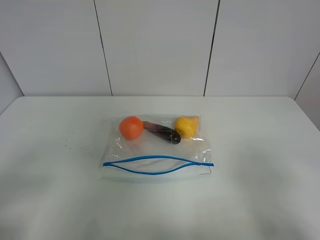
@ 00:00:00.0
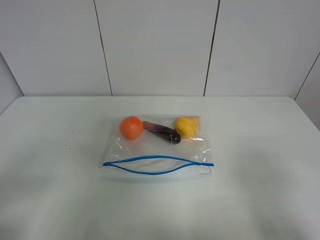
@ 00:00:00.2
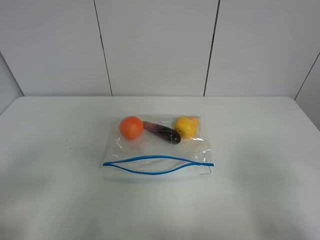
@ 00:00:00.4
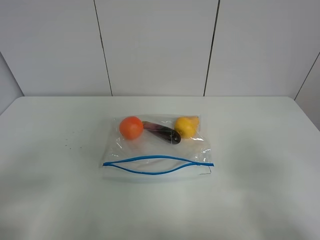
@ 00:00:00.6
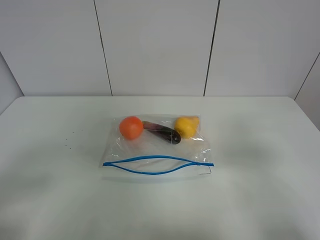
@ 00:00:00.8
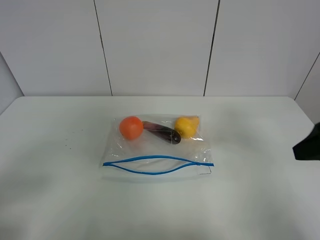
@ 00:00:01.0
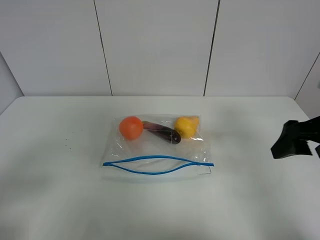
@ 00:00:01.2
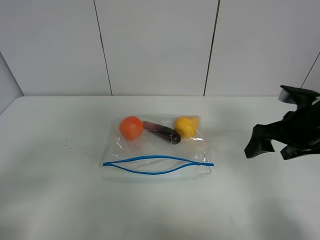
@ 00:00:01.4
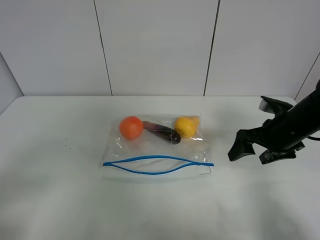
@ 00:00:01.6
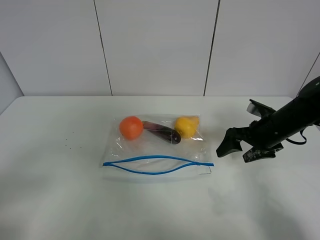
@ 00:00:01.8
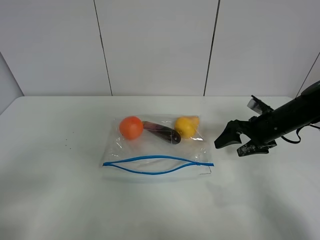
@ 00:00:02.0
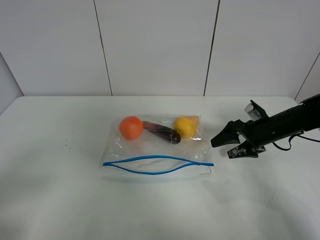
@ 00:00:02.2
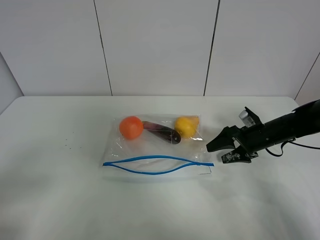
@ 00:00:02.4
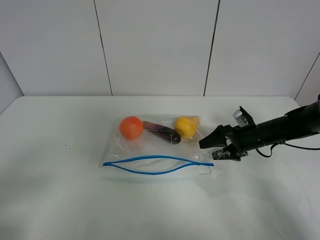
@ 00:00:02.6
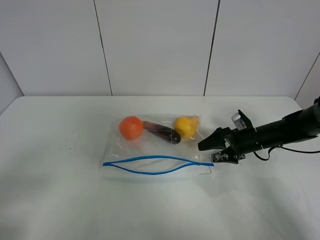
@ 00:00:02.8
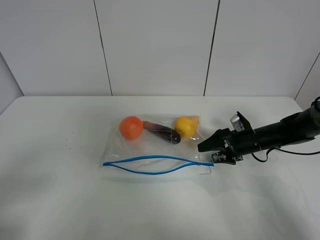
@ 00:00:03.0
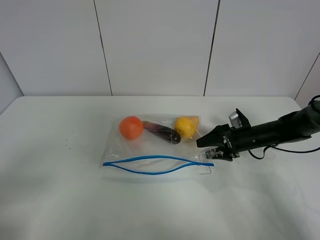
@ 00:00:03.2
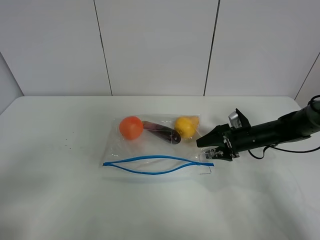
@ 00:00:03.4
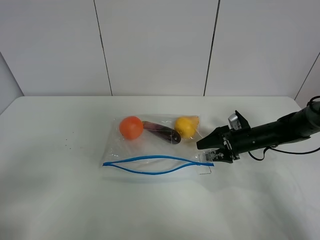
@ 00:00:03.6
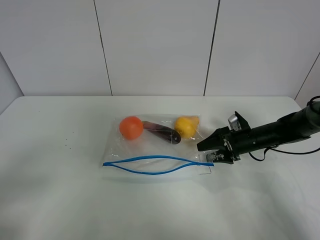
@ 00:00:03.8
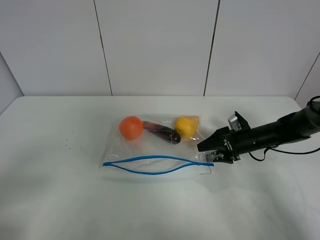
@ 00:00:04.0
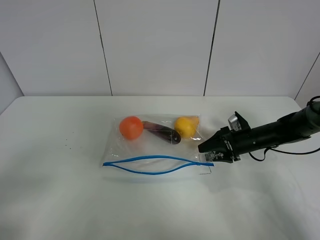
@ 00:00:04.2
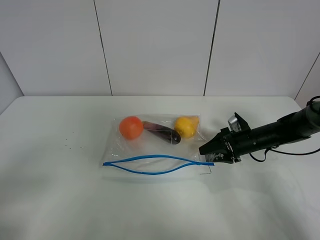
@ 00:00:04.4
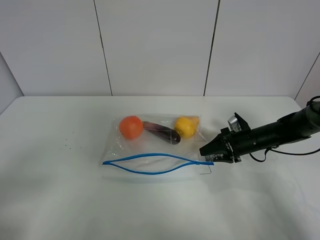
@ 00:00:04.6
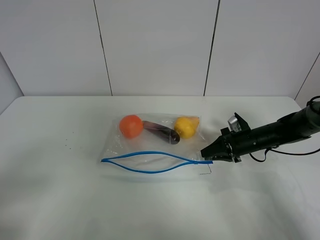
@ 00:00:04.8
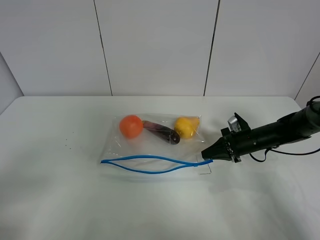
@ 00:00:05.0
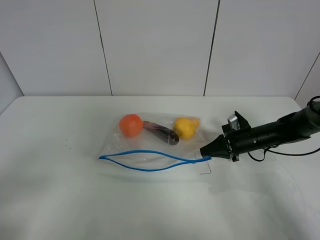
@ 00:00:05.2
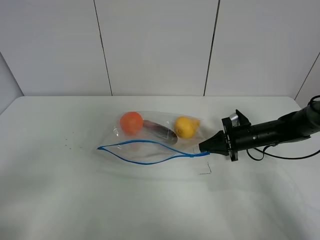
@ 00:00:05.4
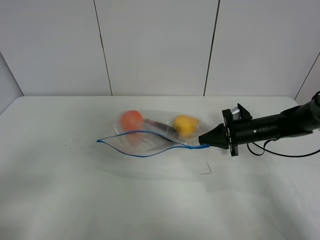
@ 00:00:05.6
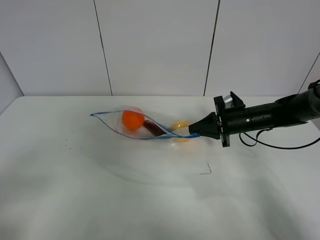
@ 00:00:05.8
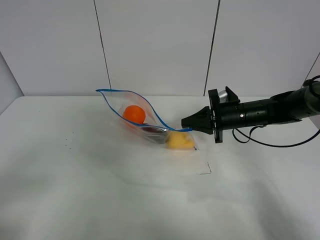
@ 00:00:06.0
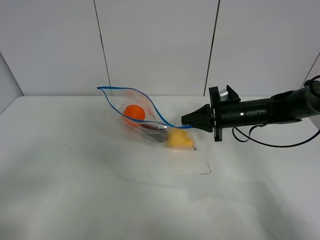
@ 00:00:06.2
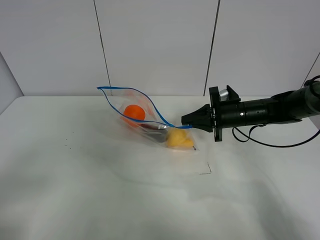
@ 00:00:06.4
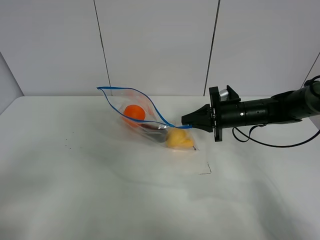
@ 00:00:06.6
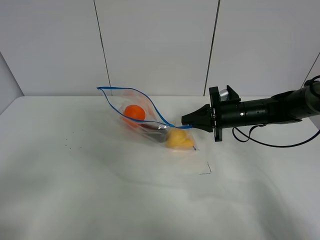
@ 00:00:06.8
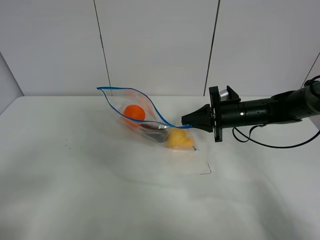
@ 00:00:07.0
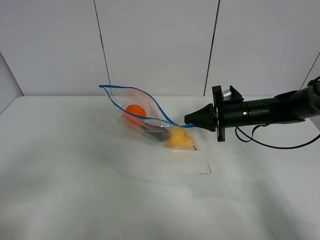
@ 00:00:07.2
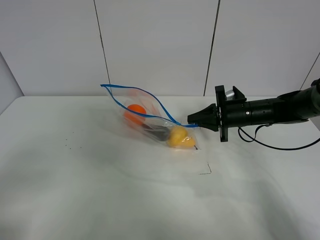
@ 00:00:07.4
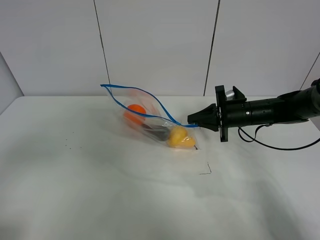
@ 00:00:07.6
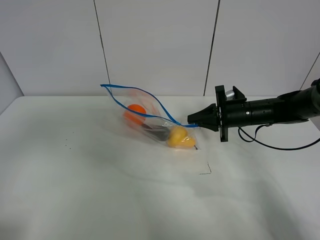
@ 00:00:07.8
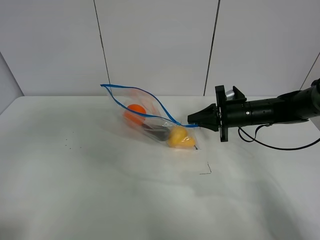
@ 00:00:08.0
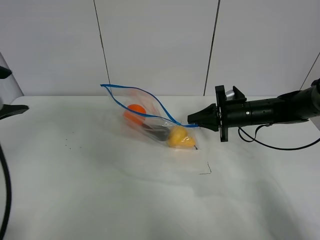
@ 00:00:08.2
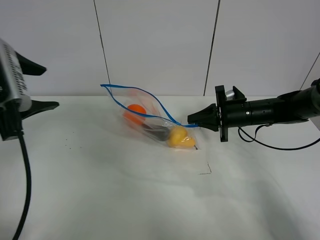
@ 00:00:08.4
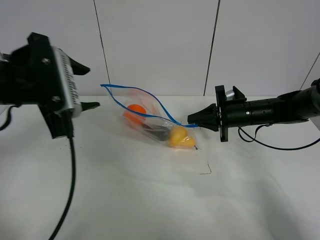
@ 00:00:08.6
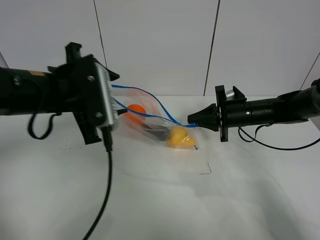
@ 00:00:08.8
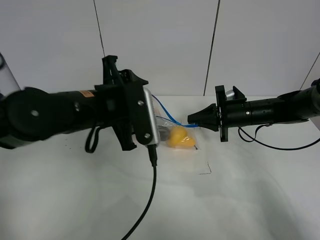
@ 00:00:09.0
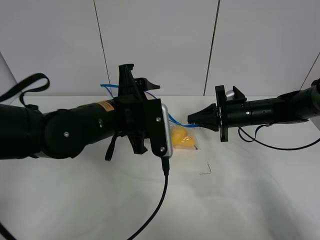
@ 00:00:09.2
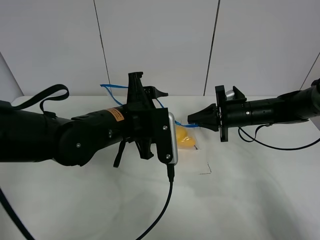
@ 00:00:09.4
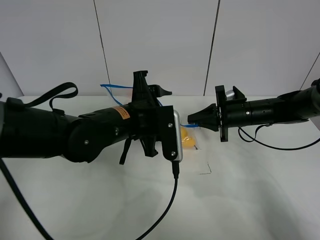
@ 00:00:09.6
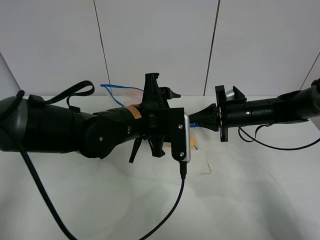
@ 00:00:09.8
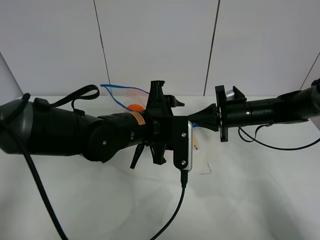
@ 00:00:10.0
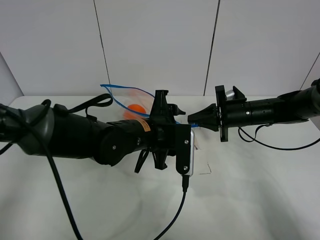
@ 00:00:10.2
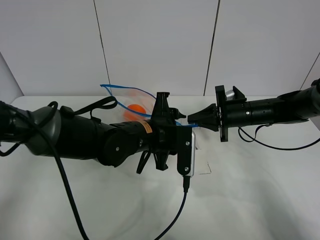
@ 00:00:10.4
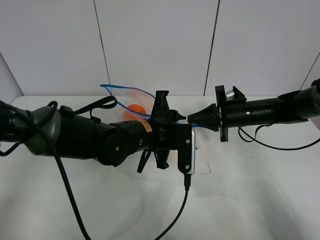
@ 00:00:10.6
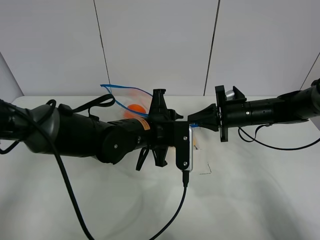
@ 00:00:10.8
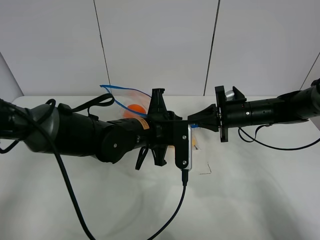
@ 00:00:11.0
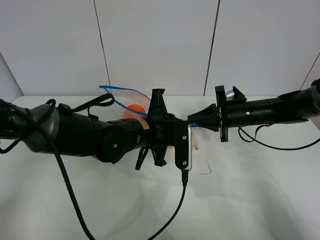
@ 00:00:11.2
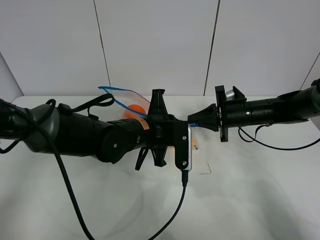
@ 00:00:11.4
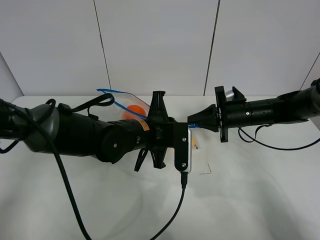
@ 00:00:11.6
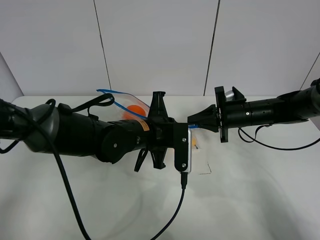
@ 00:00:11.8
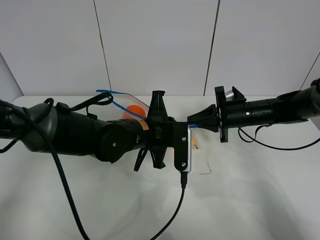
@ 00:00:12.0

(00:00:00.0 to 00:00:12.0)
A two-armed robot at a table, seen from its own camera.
Step, 00:00:00.0 - 00:00:04.8: Grasp the fruit bag with right gripper.
Step, 00:00:05.0 - 00:00:06.2: Lift the fruit bag with your right gripper.
00:00:00.0 - 00:00:01.6: The right gripper goes about 30 cm forward.
00:00:01.6 - 00:00:03.0: The right gripper moves downward and forward, roughly 15 cm.
00:00:03.0 - 00:00:04.4: Both grippers stay about where they are.
00:00:04.4 - 00:00:06.0: The right gripper heads upward and to the left, covering approximately 10 cm, and closes up.
00:00:06.0 - 00:00:07.6: The left gripper travels upward by roughly 5 cm.
00:00:07.6 - 00:00:09.0: The left gripper is displaced to the right and forward by roughly 30 cm.
00:00:09.0 - 00:00:10.4: The left gripper goes approximately 10 cm downward and to the right.
00:00:10.4 - 00:00:12.0: The left gripper closes.

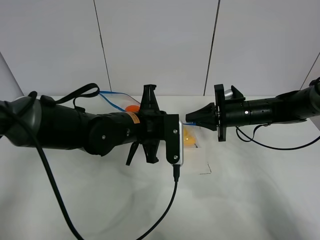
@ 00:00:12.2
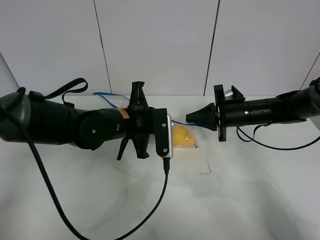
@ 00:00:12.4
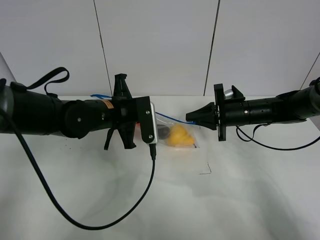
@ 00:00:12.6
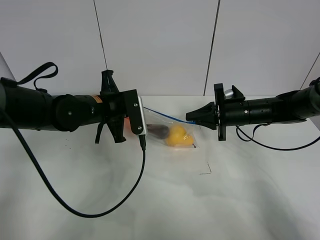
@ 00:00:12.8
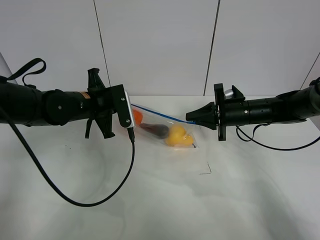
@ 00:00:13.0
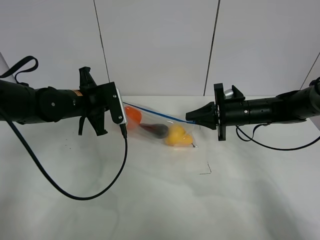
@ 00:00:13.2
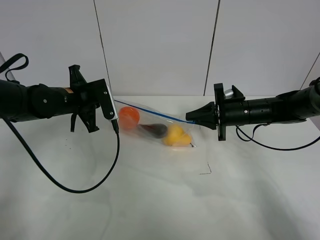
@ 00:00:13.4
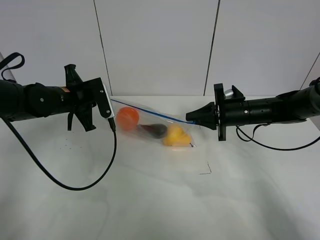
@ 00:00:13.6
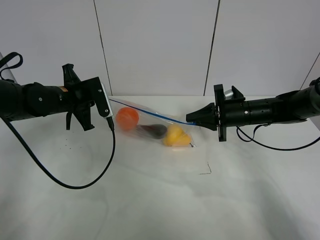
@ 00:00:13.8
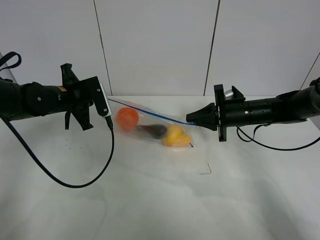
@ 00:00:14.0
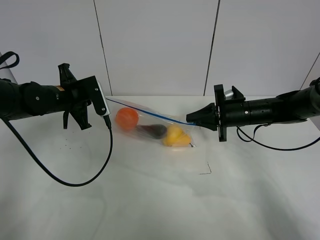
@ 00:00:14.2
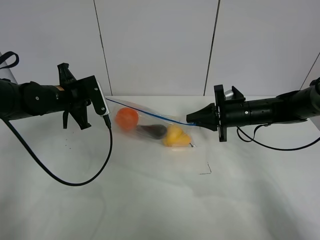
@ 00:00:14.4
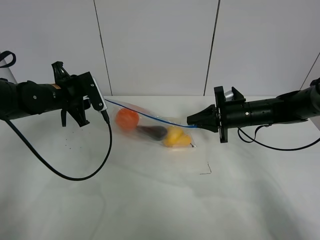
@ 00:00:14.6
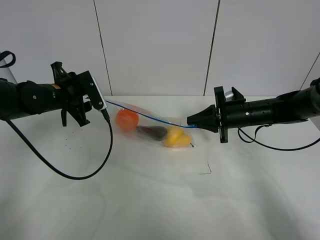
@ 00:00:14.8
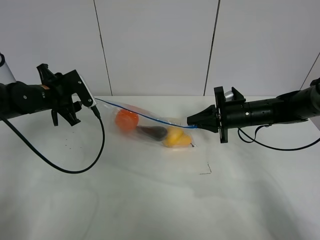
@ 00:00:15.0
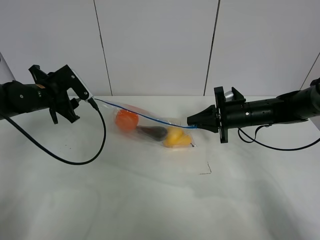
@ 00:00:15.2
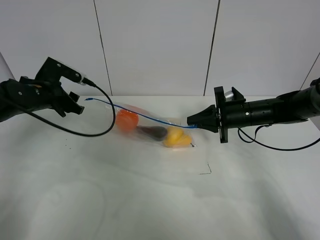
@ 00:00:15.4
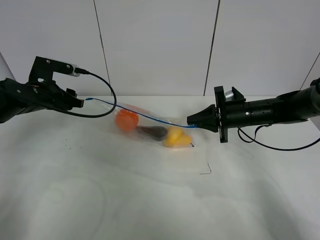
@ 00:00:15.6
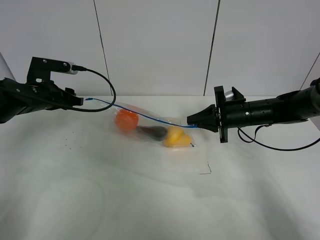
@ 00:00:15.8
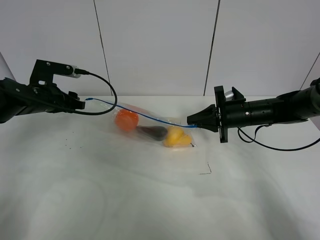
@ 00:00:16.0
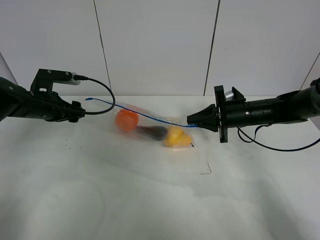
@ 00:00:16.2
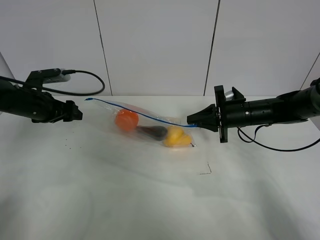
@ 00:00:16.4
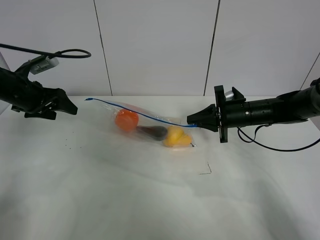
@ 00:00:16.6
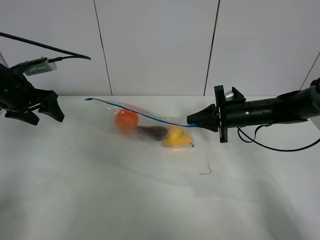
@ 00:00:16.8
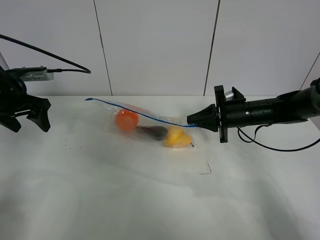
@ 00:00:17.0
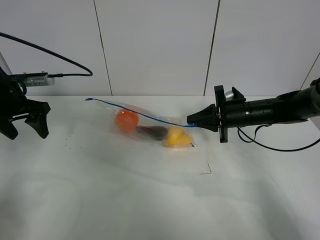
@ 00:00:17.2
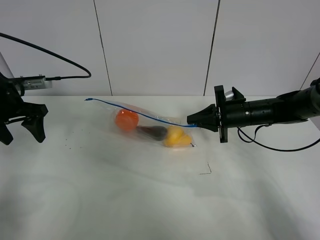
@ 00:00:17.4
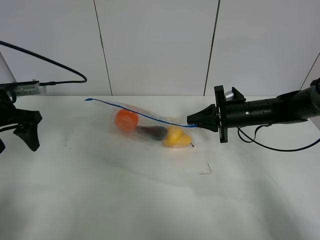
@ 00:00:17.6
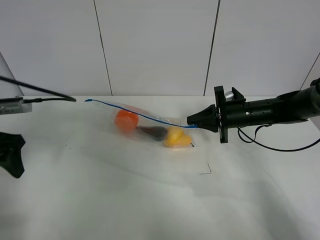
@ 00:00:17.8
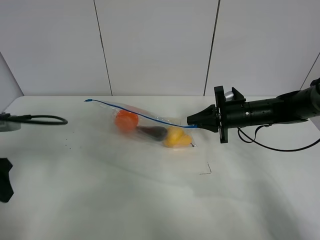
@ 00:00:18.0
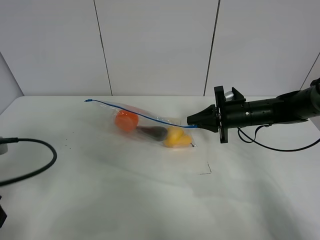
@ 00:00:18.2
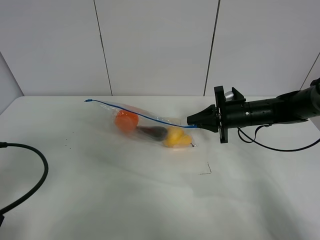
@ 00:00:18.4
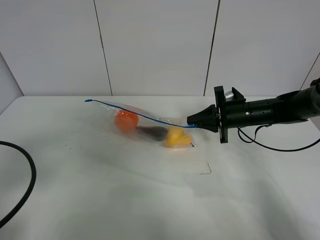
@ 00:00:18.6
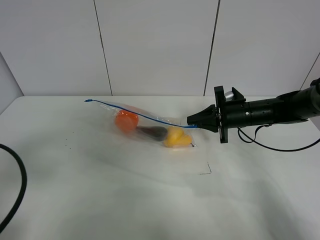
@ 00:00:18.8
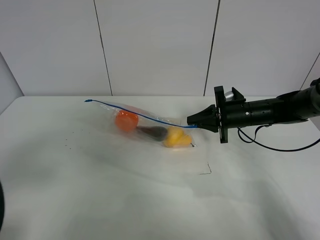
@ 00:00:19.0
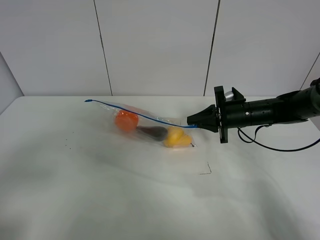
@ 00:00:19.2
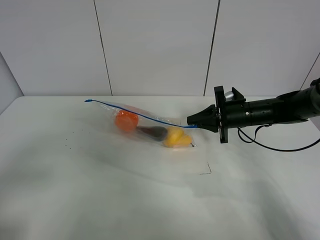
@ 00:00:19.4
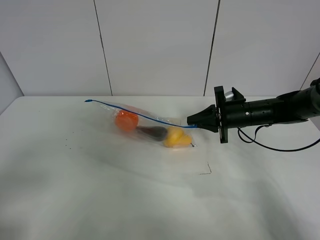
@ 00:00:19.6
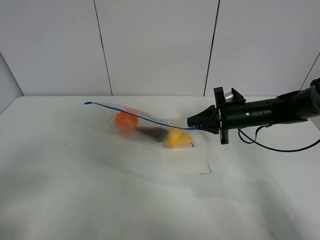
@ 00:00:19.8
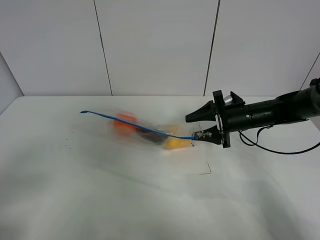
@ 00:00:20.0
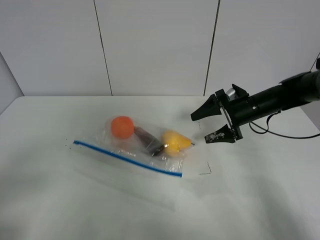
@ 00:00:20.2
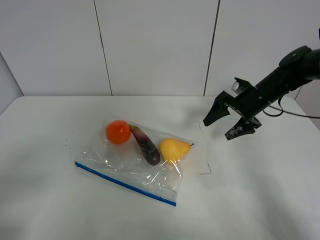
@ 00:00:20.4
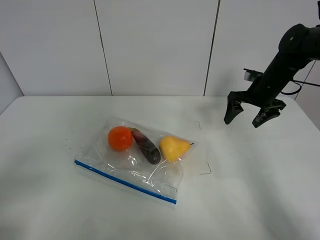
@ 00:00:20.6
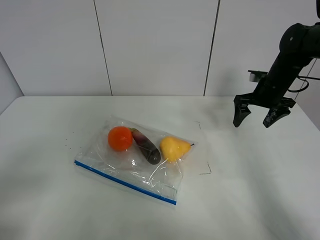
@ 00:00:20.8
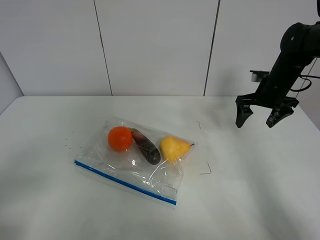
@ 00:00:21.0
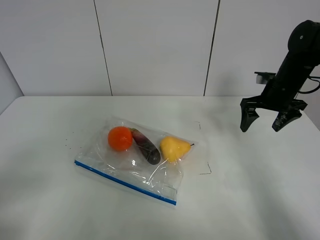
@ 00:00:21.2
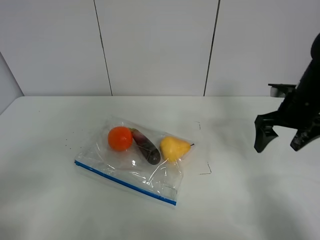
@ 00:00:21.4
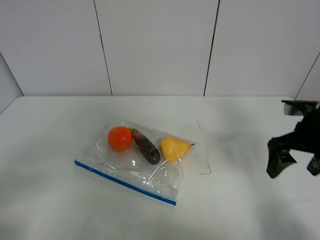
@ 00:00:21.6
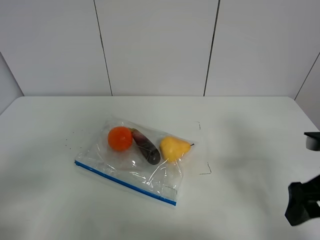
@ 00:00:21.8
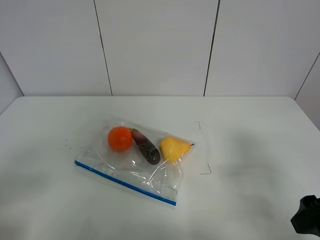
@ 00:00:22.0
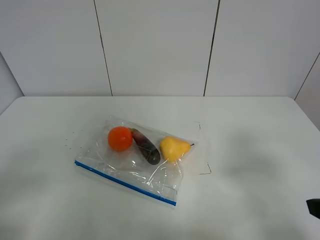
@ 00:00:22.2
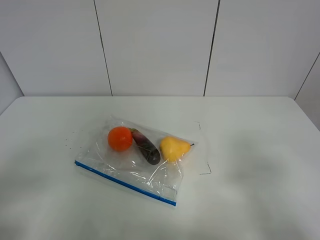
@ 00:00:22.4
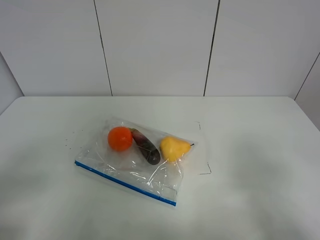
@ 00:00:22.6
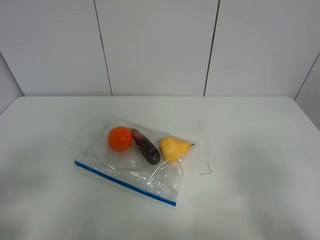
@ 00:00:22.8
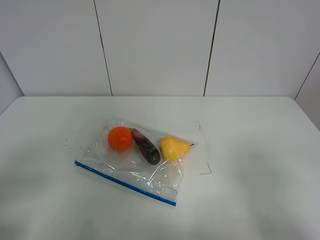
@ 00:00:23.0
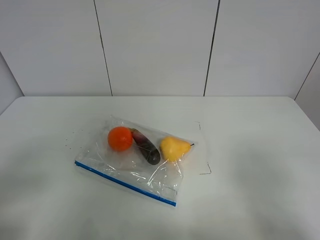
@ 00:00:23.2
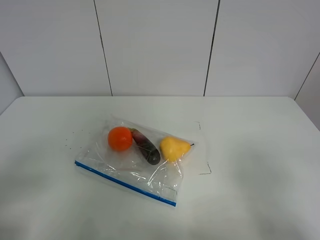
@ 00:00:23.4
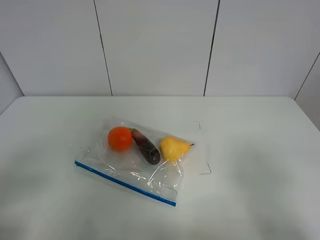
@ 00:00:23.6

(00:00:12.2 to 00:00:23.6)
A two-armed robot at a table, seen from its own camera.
Step, 00:00:12.2 - 00:00:15.0: Pull the fruit bag with left gripper.
00:00:12.2 - 00:00:13.6: The left gripper moves to the left and forward, about 15 cm.
00:00:13.6 - 00:00:15.0: The left gripper shifts by about 5 cm, and opens.
00:00:15.0 - 00:00:16.4: The left gripper shifts by approximately 5 cm.
00:00:16.4 - 00:00:17.8: The left gripper travels backward and upward by some 15 cm.
00:00:17.8 - 00:00:19.4: The left gripper moves backward, approximately 20 cm.
00:00:19.4 - 00:00:20.8: The right gripper moves to the right, upward and forward, some 10 cm, and opens up.
00:00:20.8 - 00:00:22.2: The right gripper shifts approximately 35 cm backward.
